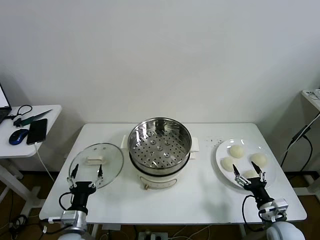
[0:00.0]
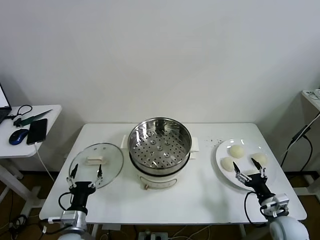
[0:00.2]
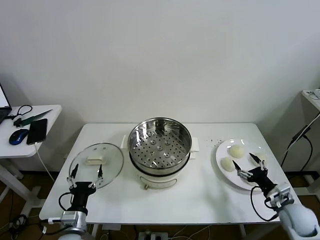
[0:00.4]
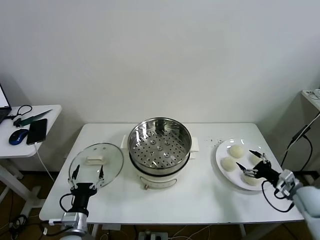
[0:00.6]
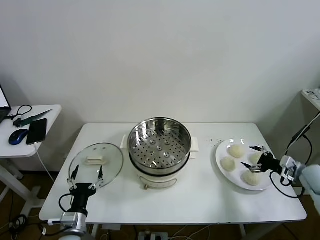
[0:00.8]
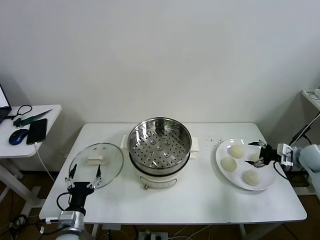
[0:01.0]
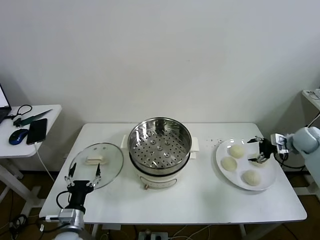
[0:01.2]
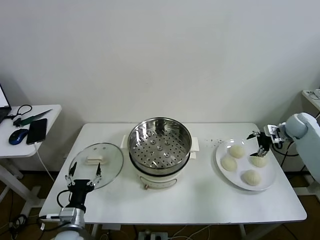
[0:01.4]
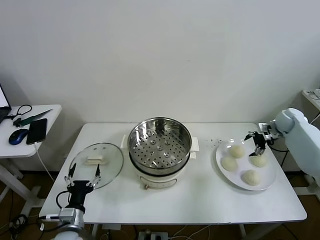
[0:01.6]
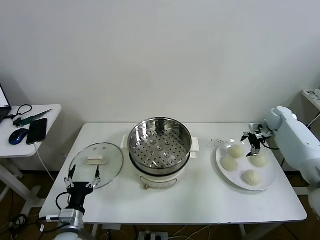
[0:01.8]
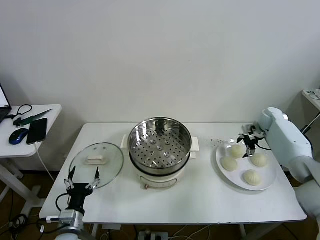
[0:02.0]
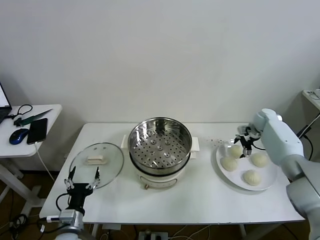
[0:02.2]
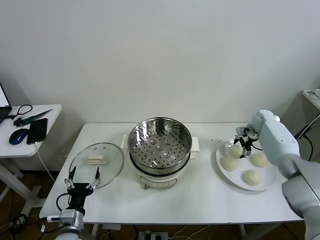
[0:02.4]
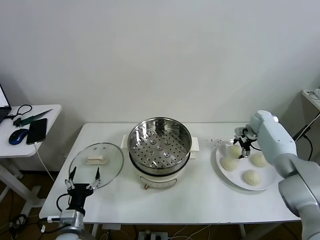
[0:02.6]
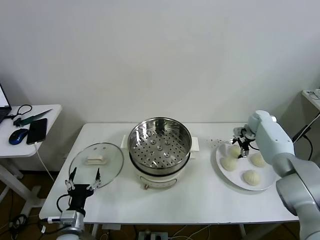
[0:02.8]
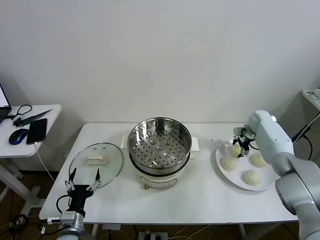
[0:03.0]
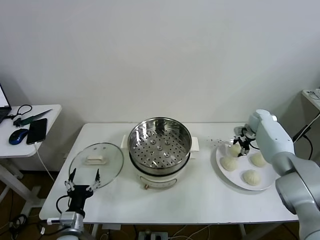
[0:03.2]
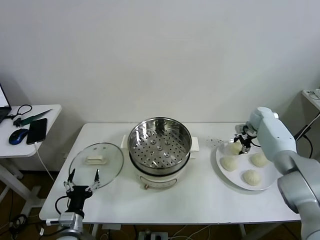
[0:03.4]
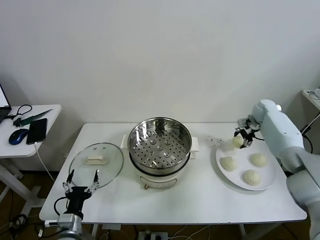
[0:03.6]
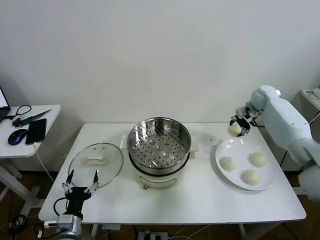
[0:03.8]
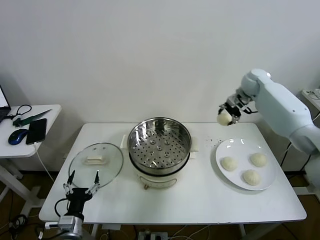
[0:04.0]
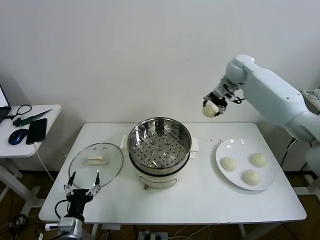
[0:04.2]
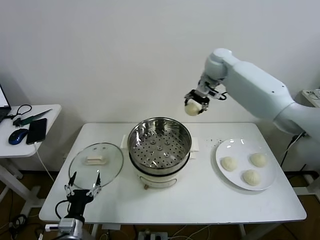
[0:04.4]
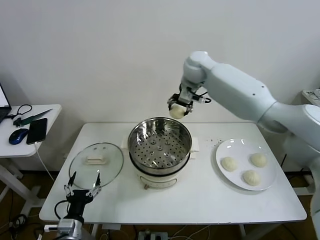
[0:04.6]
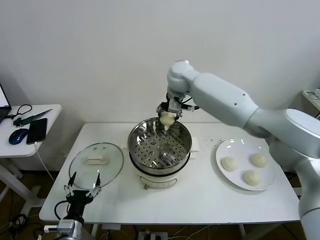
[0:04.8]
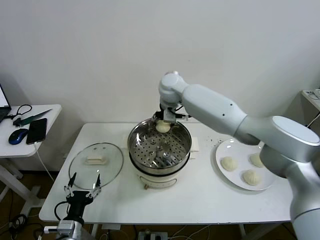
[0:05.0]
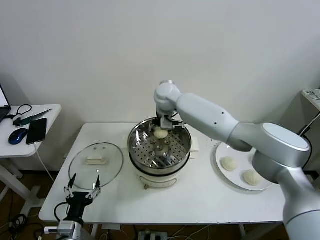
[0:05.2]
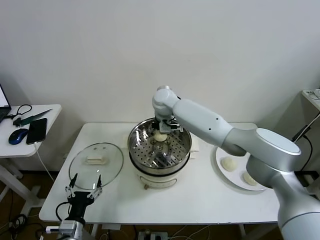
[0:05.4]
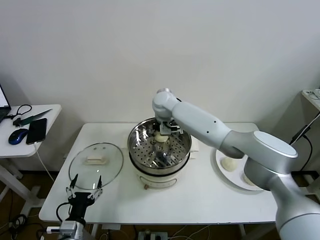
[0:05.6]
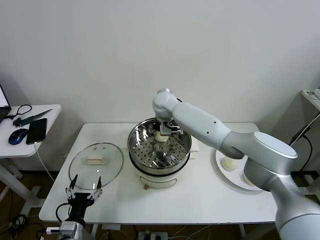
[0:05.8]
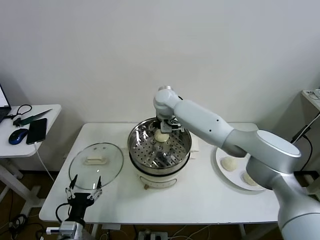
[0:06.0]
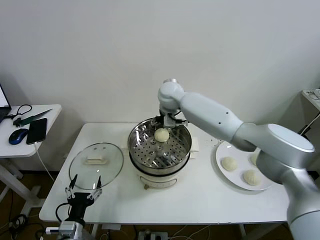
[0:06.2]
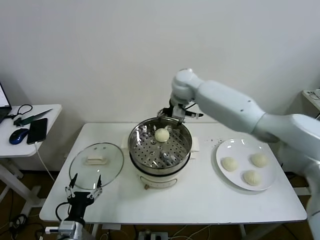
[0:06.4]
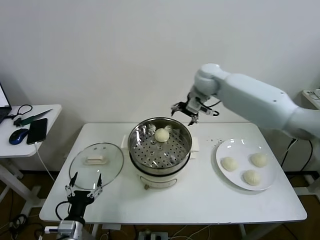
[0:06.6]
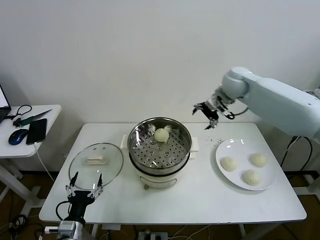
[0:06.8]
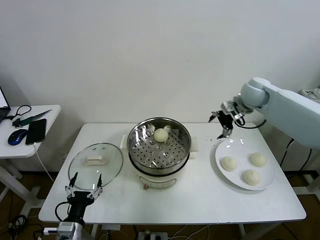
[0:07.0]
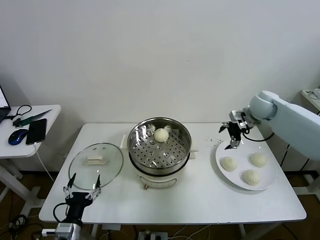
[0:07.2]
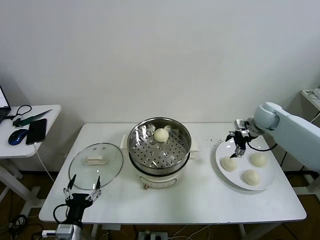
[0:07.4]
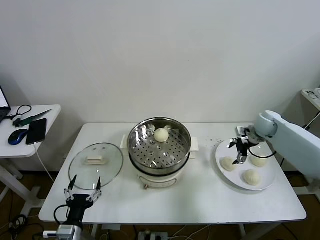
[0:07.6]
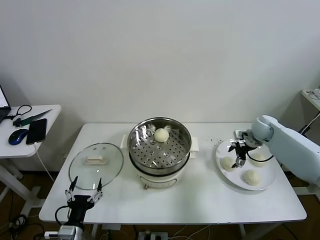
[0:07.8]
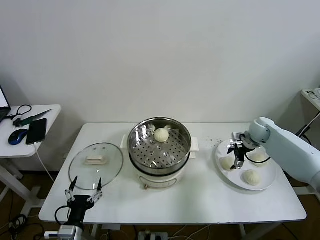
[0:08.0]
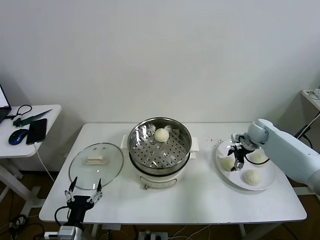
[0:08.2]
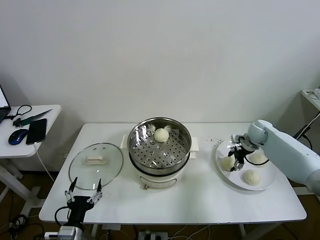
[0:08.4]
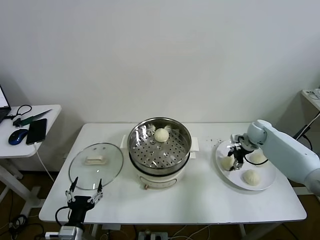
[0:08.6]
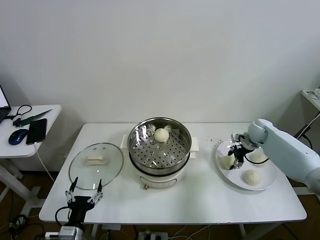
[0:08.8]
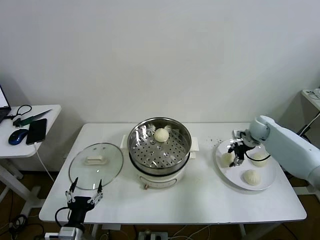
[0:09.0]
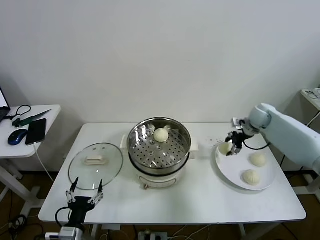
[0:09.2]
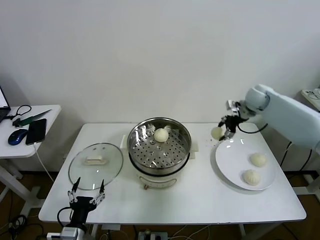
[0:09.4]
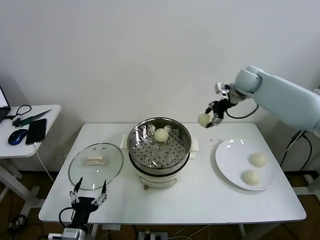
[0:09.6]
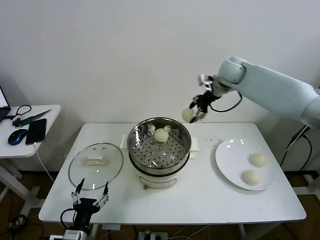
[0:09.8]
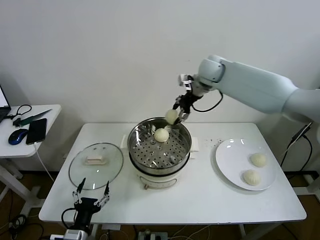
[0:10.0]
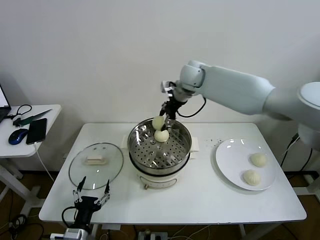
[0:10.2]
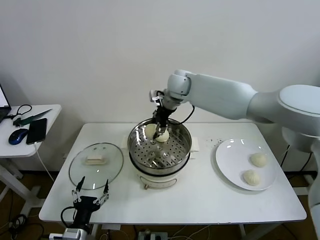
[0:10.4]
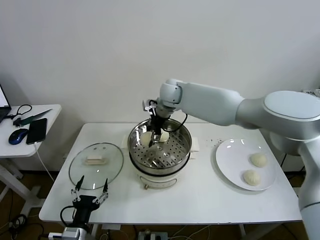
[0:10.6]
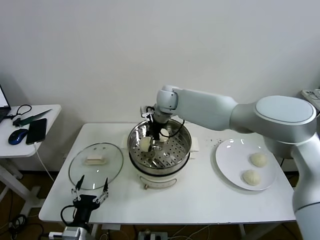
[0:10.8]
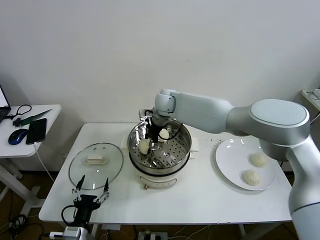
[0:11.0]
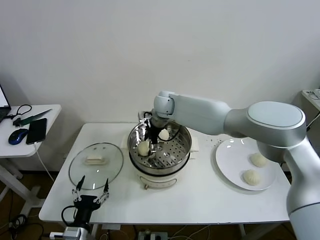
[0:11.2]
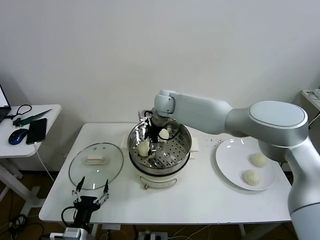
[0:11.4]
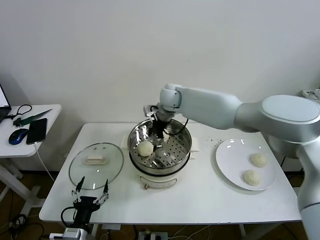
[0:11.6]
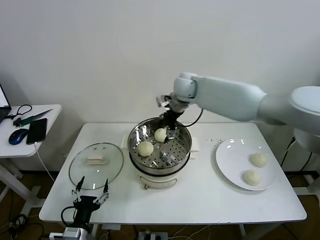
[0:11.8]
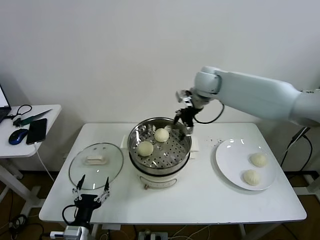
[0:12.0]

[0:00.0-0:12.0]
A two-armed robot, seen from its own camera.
Task of the whole recording: take steamed baozi put them in steamer then cover it.
Step, 0.0 to 3.2 s: Grasp the baozi in the plate with right gripper.
Step, 3.4 to 5.8 s: Place the baozi on the steamer with right gripper.
Step, 6.0 to 8.8 s: Grasp the baozi in the plate with right gripper.
Step, 9.0 to 11.2 s: Place the baozi on the steamer with right gripper.
1.6 to 3.0 s: The right gripper is displaced to the left by approximately 5 cm, and closes.
3.0 to 4.4 s: The right gripper heads to the left and upward, covering approximately 40 cm.
4.4 to 6.0 s: The right gripper moves to the left and downward, about 15 cm, and opens its fingers.
6.0 to 7.6 s: The right gripper moves to the right, some 40 cm.
7.6 to 9.0 s: The right gripper closes its fingers.
9.0 to 10.4 s: The right gripper shifts roughly 40 cm to the left and upward.
10.4 to 12.0 s: The right gripper travels to the right by roughly 15 cm, and opens up.

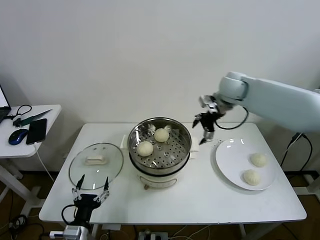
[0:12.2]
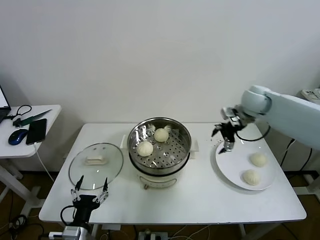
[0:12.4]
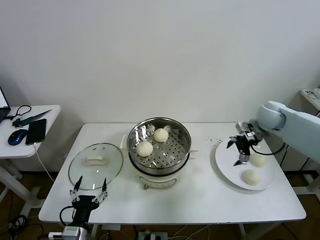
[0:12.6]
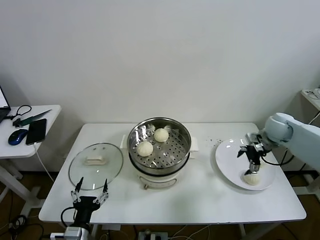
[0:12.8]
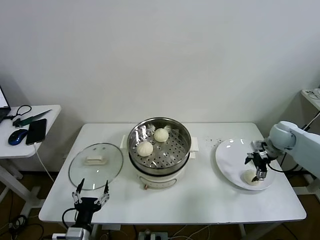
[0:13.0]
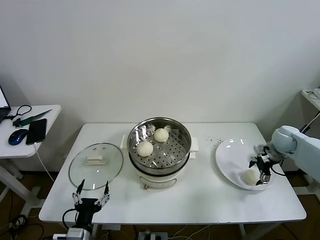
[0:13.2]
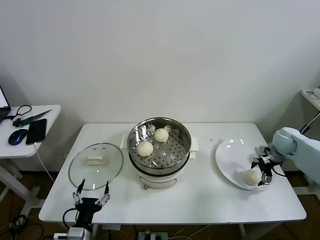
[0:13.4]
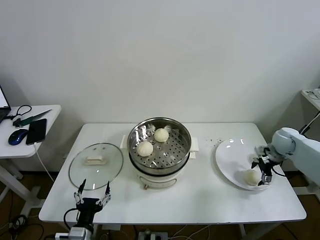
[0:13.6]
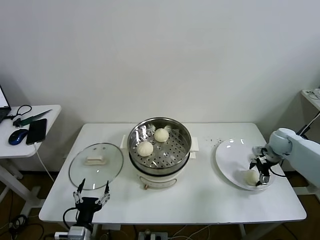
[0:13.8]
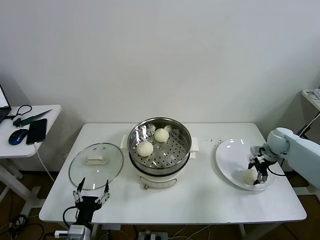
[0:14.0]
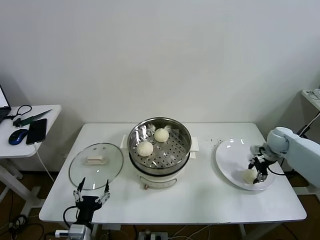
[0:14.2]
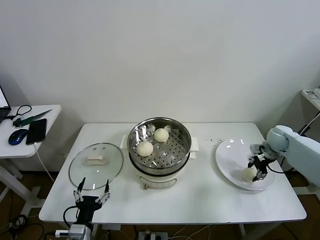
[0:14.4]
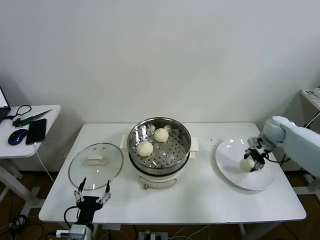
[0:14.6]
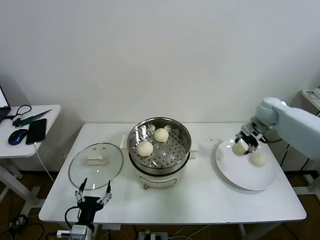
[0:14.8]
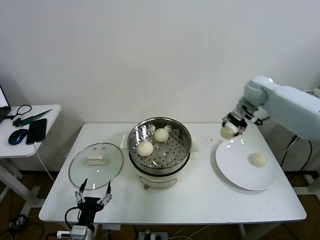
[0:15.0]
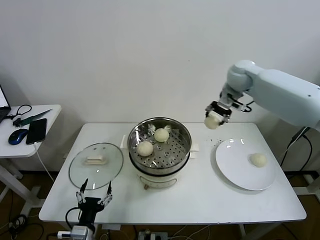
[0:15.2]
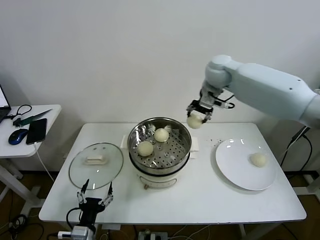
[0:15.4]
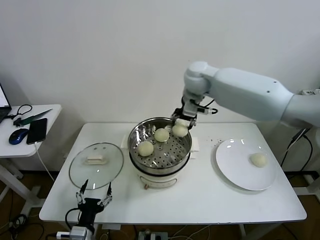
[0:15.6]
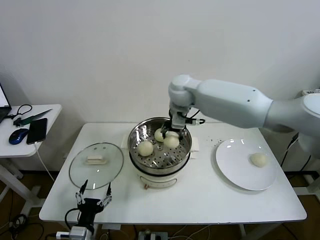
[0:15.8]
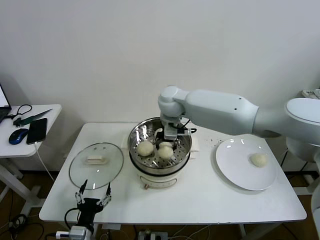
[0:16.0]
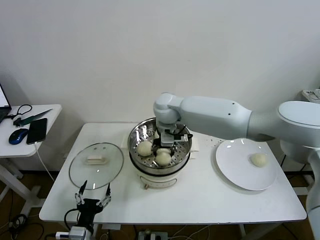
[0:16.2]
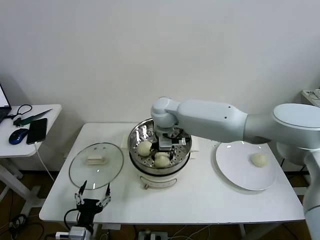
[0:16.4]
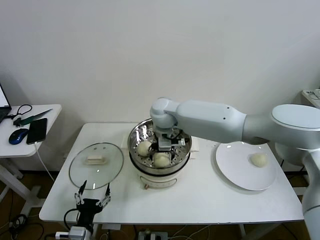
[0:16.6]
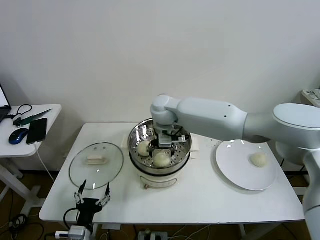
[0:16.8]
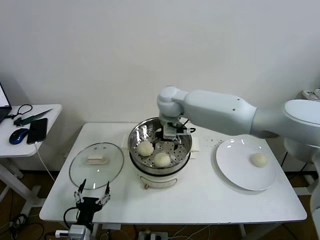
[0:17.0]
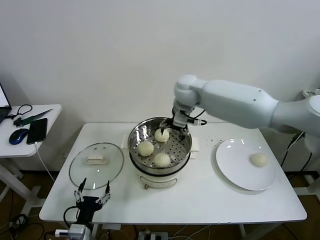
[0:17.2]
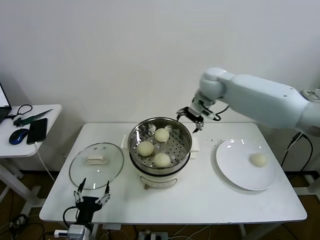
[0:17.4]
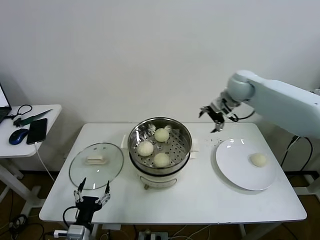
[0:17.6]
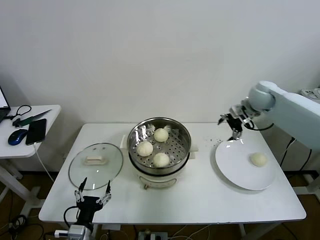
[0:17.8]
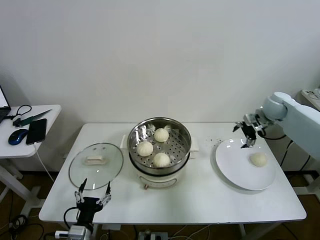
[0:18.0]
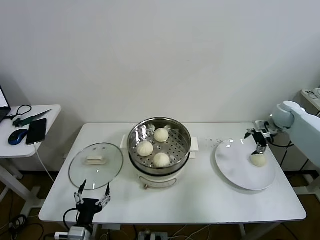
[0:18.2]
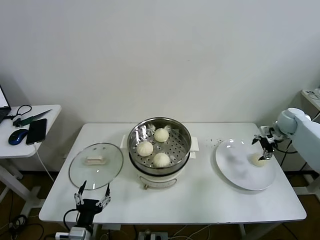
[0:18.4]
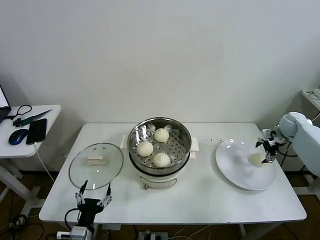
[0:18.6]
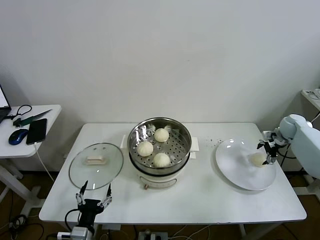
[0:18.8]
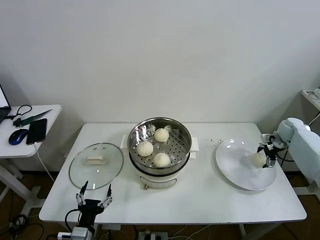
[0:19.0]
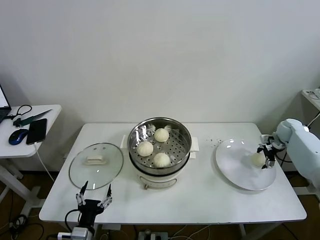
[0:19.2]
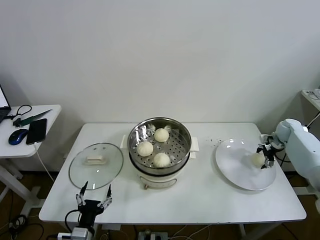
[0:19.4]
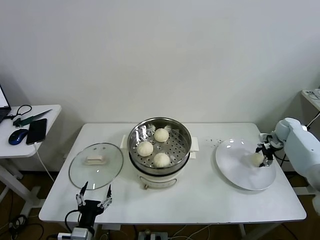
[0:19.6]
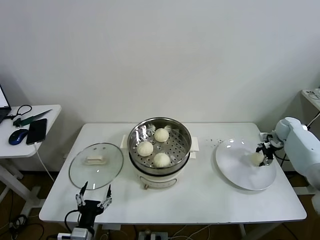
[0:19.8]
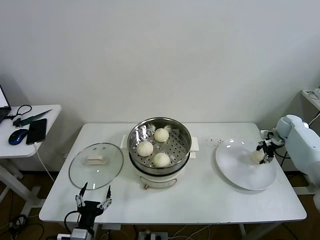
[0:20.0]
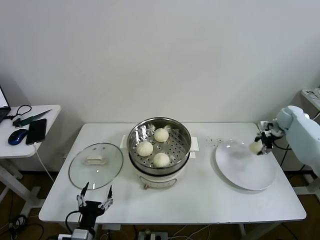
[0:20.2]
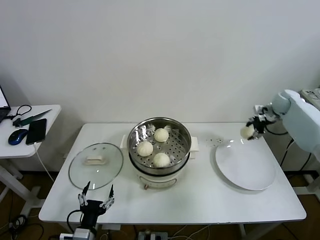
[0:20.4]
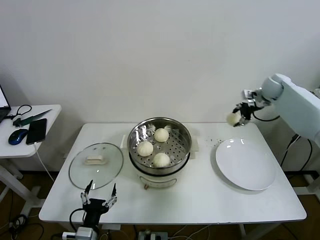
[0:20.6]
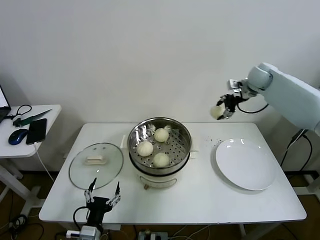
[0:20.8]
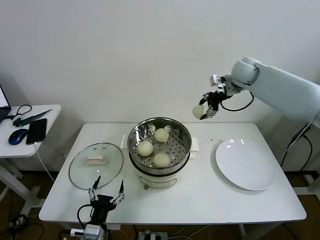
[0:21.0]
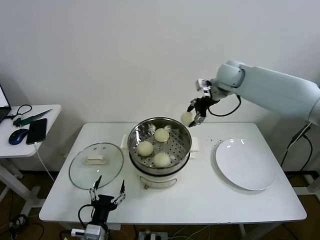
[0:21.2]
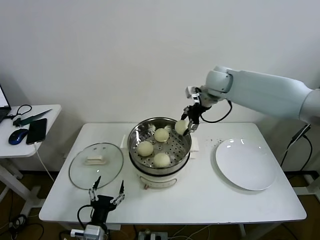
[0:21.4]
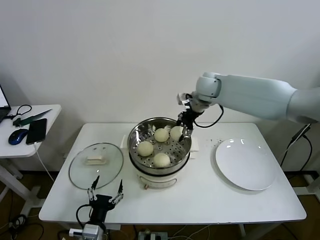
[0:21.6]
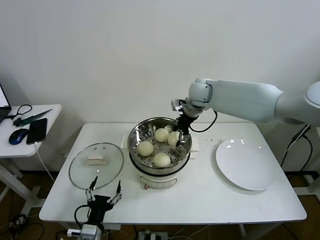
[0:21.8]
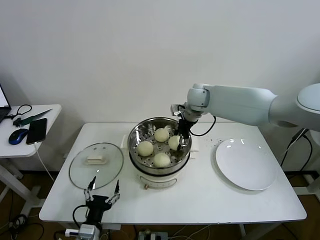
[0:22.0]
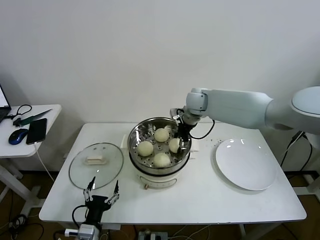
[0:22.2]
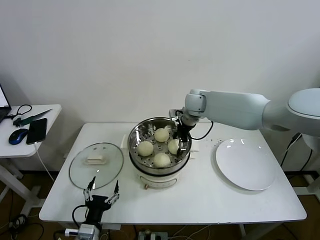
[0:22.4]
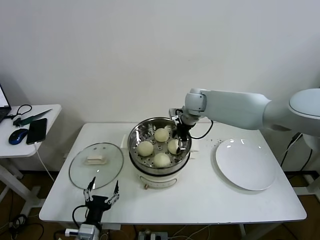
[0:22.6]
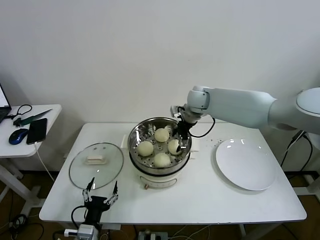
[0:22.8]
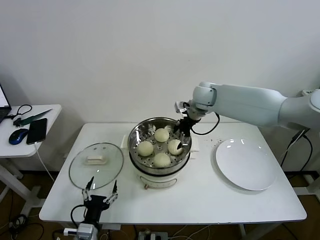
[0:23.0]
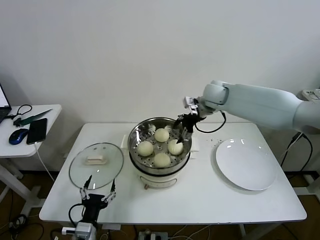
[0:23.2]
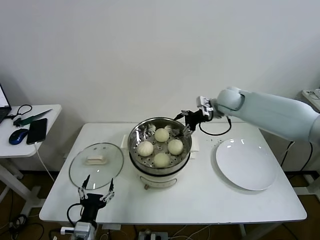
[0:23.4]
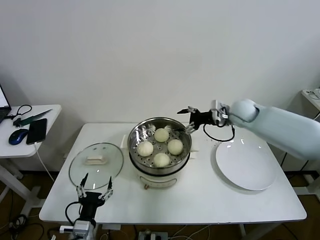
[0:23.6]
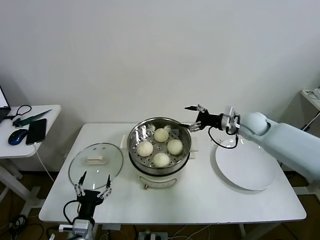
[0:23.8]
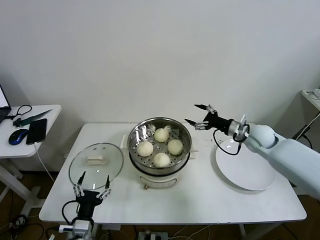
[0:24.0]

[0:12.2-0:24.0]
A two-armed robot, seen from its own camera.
Task of the whole recording: take steamed baozi put them in steamer then cover it.
Step, 12.2 to 14.2 s: Grasp the baozi in the plate with right gripper.
Step, 14.4 to 16.6 s: Place the baozi on the steamer with right gripper.
Step, 17.0 to 19.8 s: Grasp the baozi in the plate with right gripper.
Step, 20.0 to 22.4 s: Place the baozi on the steamer with right gripper.
12.2 to 13.6 s: The right gripper is displaced to the right and downward by about 30 cm.
13.6 to 15.2 s: The right gripper moves upward and to the left, approximately 35 cm, and closes.
15.2 to 16.6 s: The right gripper travels to the left and downward by roughly 25 cm, and opens.
16.6 to 18.2 s: The right gripper goes some 50 cm to the right.
18.2 to 19.6 s: The right gripper travels downward and to the right by approximately 10 cm, and closes its fingers.
19.6 to 21.0 s: The right gripper is displaced to the left and upward by approximately 35 cm.
21.0 to 22.6 s: The right gripper travels to the left and downward by approximately 20 cm, and opens its fingers.
22.6 to 24.0 s: The right gripper shifts some 25 cm to the right, backward and downward.
